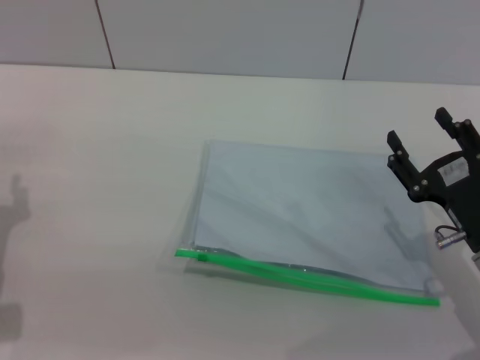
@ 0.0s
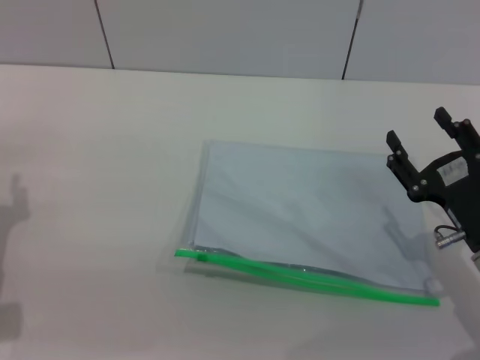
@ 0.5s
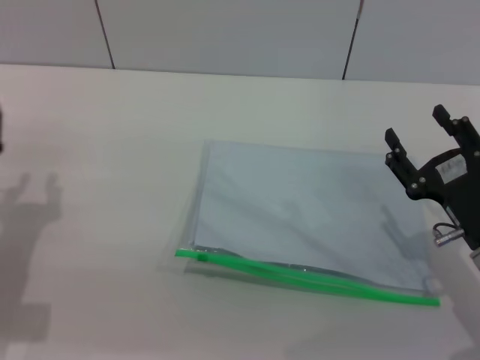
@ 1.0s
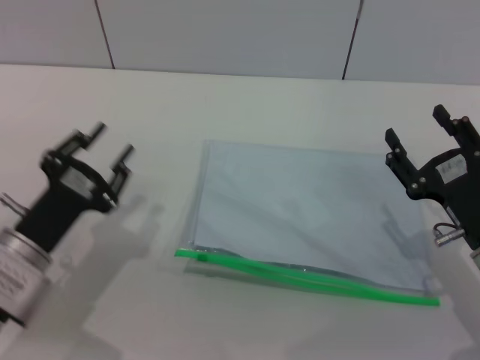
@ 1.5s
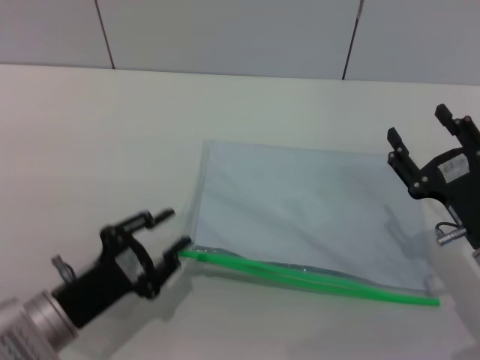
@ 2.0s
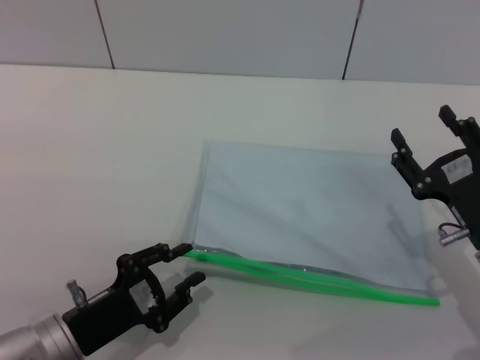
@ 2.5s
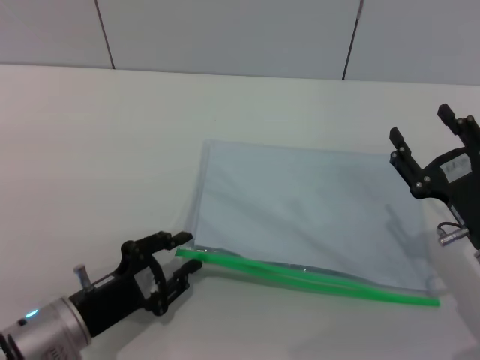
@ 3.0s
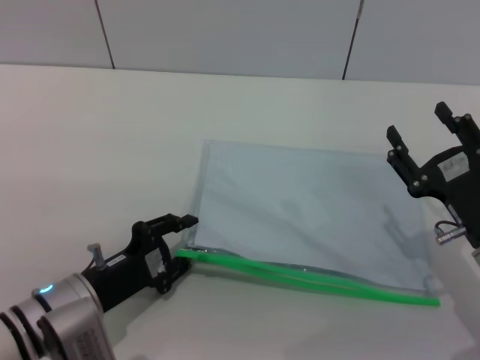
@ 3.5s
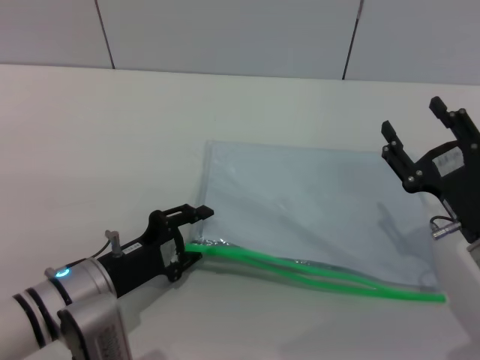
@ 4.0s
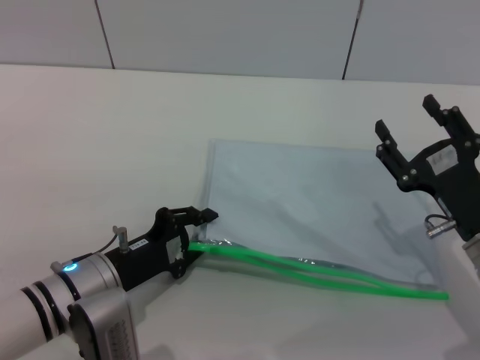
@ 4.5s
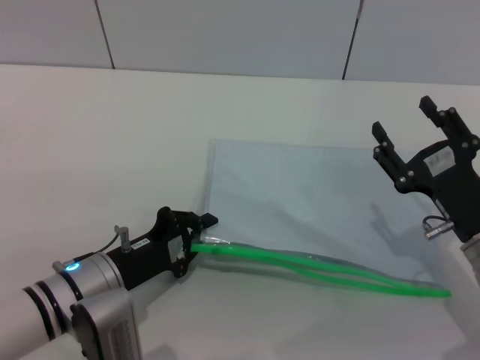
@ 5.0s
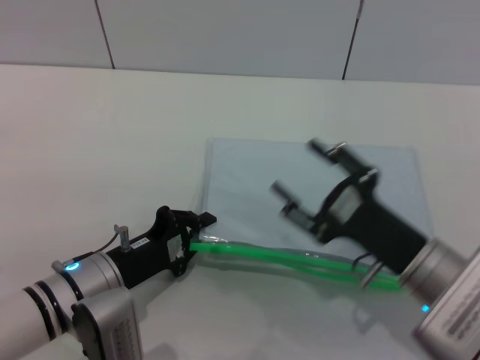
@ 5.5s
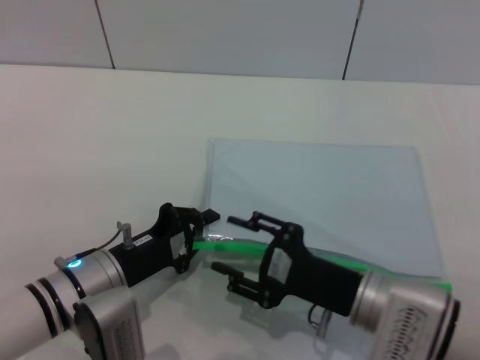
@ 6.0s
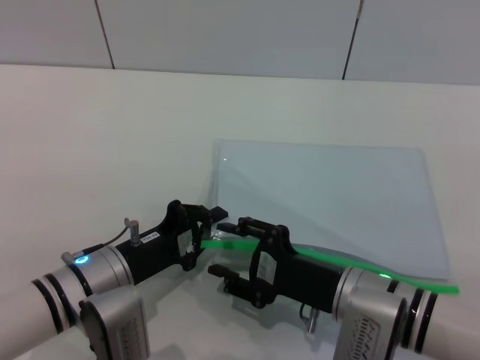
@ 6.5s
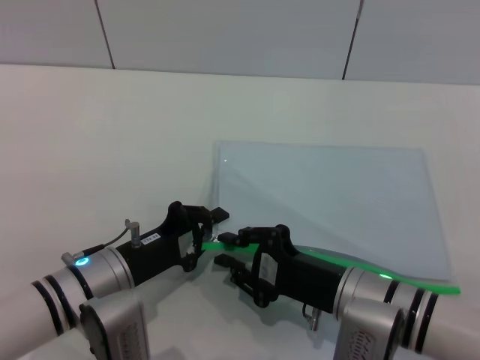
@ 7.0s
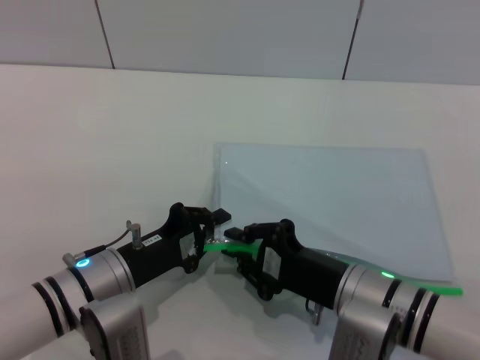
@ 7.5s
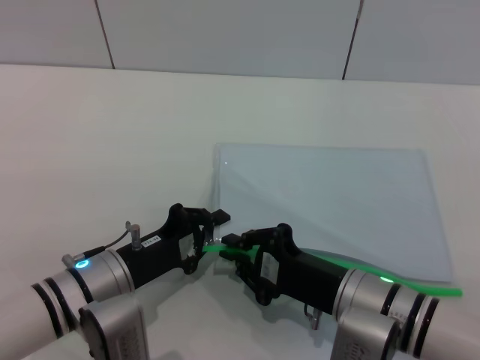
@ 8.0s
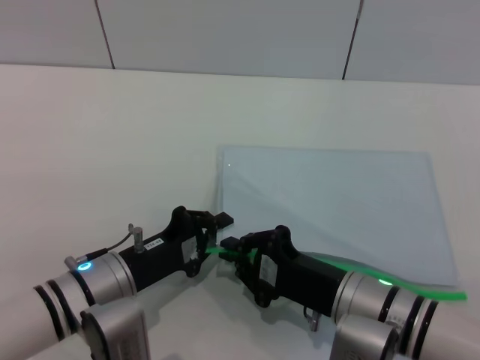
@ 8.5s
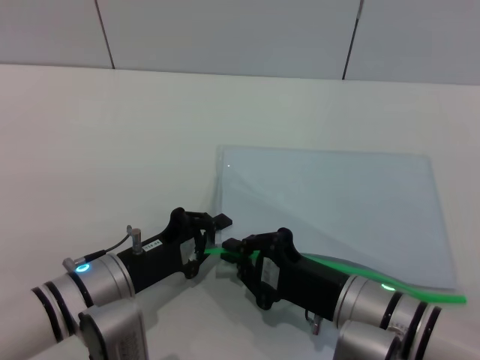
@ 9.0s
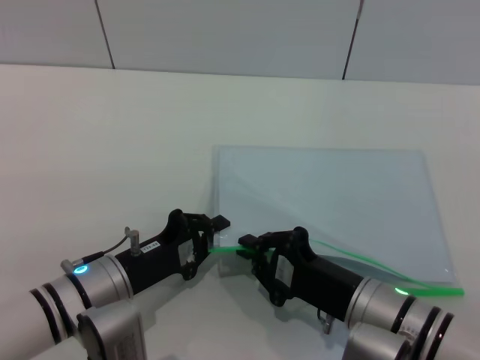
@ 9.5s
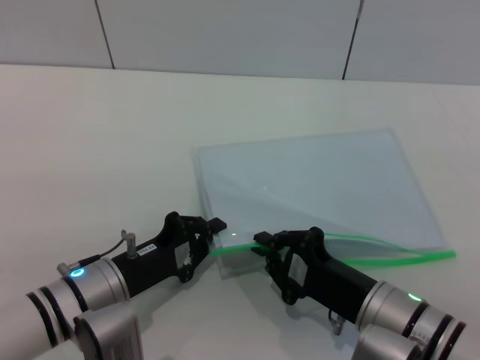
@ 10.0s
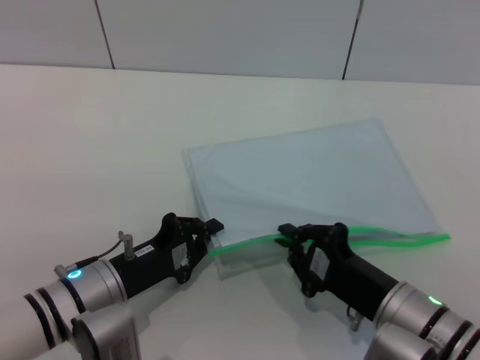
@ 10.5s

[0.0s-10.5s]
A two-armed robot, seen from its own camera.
Step, 0.0s to 5.0s: Pick up the transparent plastic bag with the left gripper.
0.0s to 2.0s: The left gripper is displaced to the right and backward by roughly 10 cm.
2.0s to 4.0s: The left gripper moves about 5 cm.
4.0s to 6.5s: The right gripper heads to the left, covering roughly 10 cm; the left gripper closes.
6.5s to 8.5s: The right gripper closes its fingers.
8.5s to 10.5s: There are only small adjustments of the grippers.

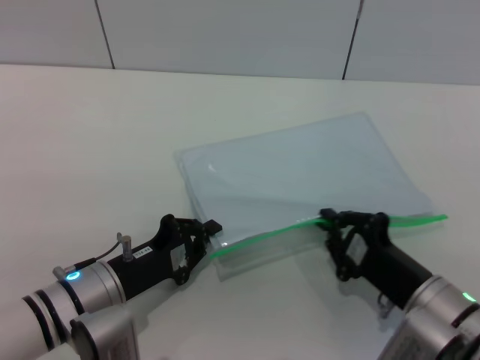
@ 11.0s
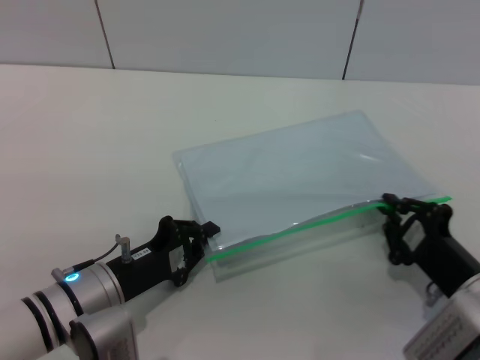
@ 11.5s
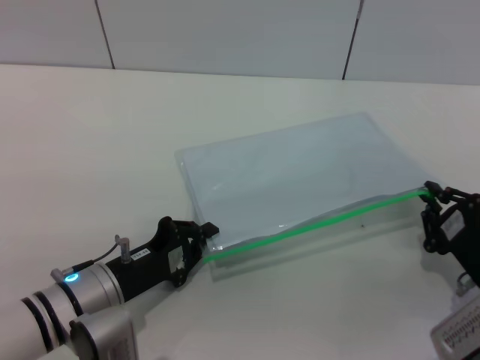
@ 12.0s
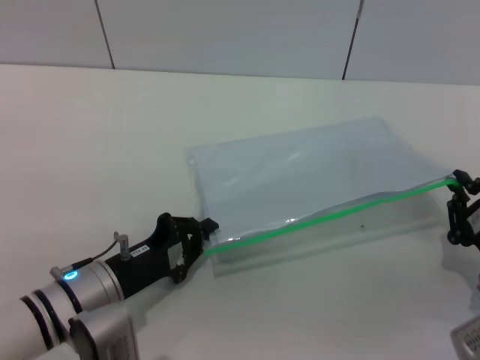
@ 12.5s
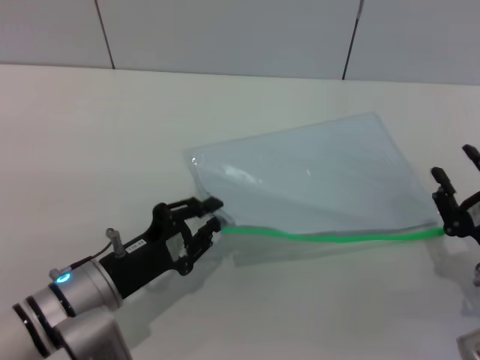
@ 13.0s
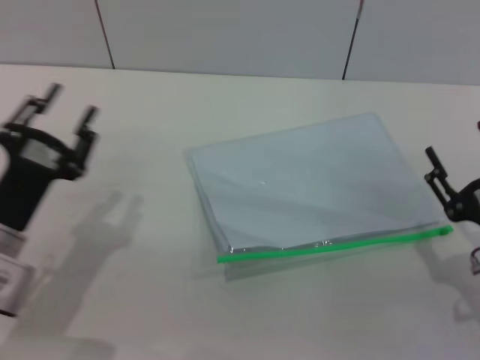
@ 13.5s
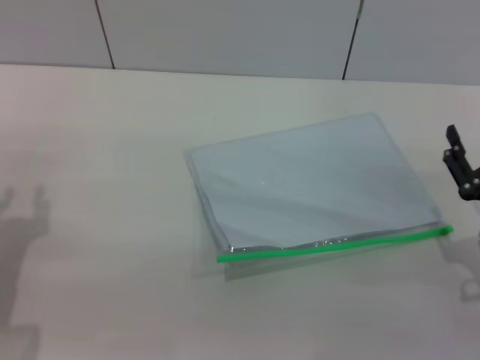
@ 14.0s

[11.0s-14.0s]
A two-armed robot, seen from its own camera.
11.0s to 12.5s: The right gripper is displaced to the right by roughly 10 cm.
12.5s to 14.0s: The right gripper opens its fingers; the left gripper is displaced to the left by roughly 10 cm, and opens.
